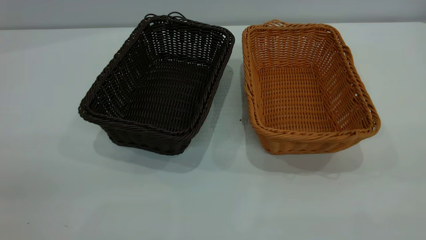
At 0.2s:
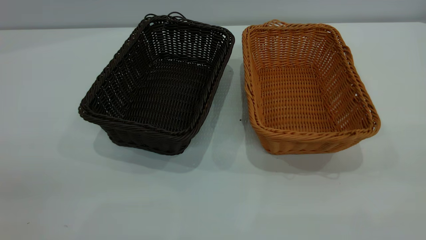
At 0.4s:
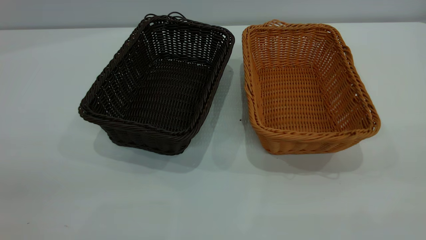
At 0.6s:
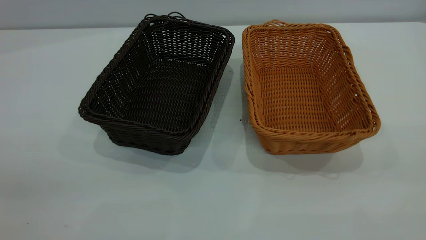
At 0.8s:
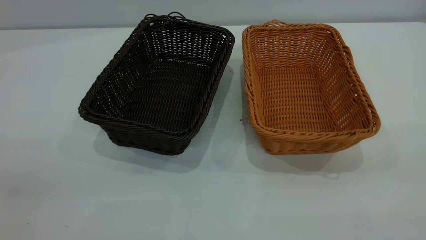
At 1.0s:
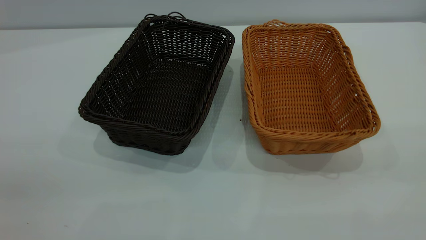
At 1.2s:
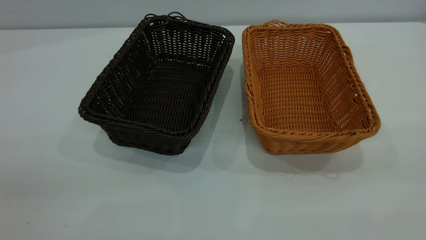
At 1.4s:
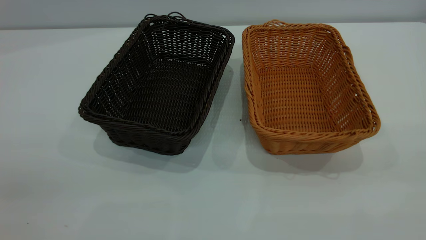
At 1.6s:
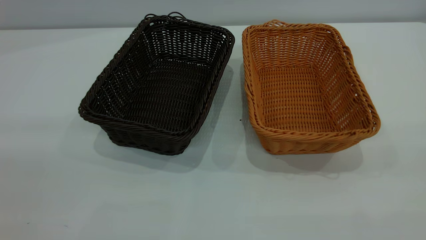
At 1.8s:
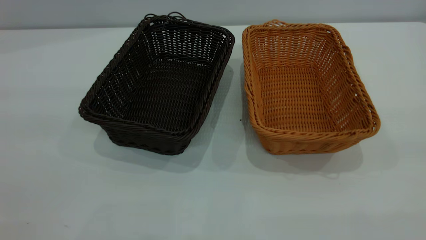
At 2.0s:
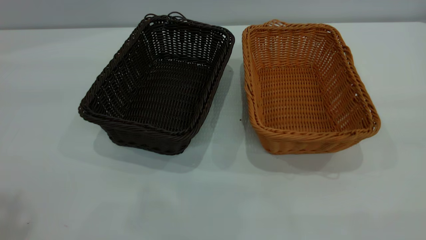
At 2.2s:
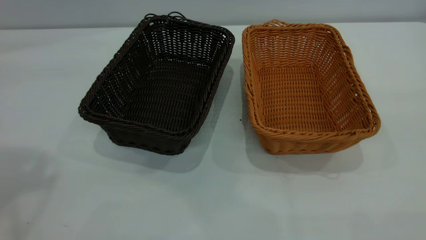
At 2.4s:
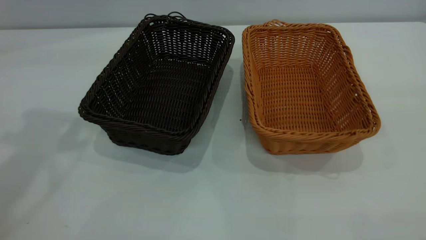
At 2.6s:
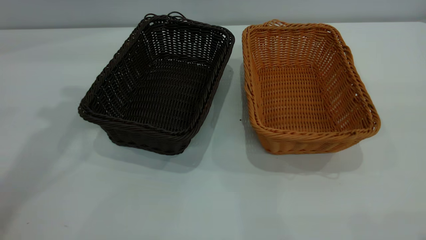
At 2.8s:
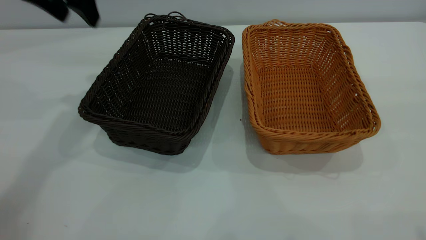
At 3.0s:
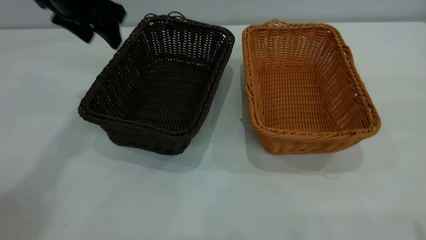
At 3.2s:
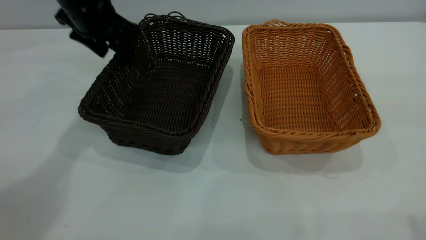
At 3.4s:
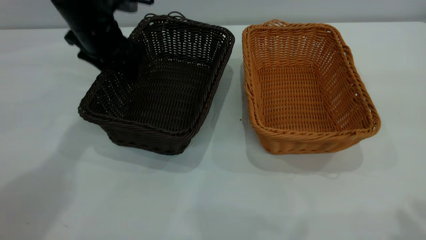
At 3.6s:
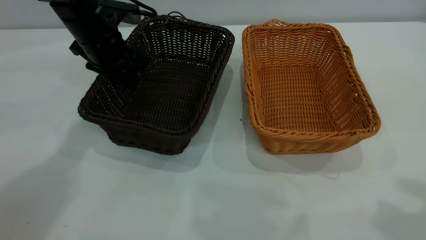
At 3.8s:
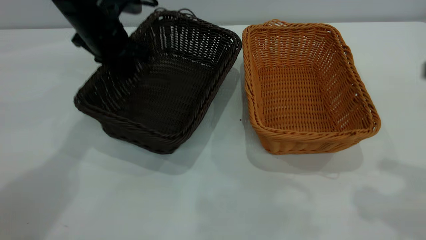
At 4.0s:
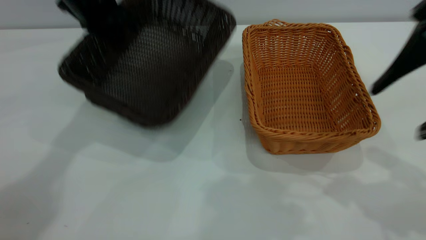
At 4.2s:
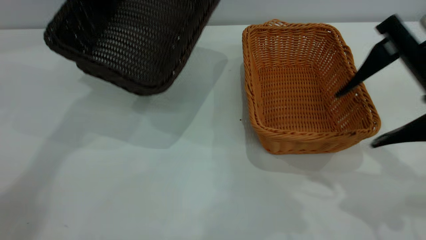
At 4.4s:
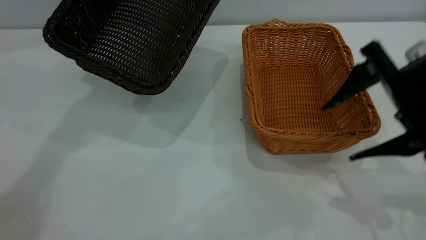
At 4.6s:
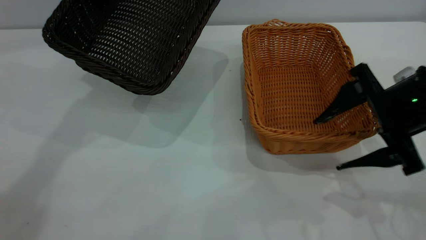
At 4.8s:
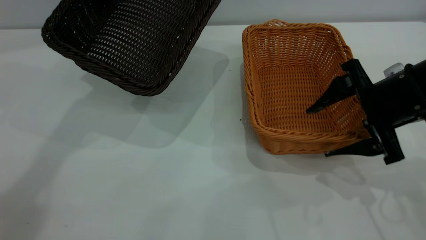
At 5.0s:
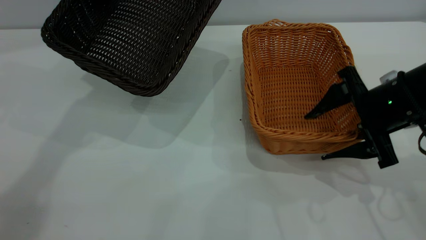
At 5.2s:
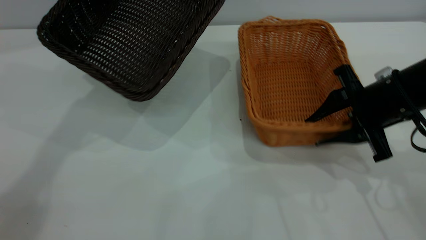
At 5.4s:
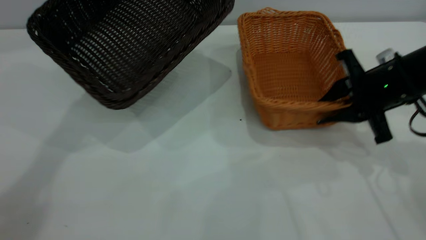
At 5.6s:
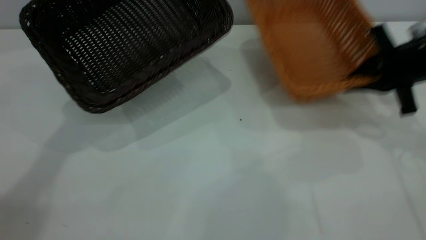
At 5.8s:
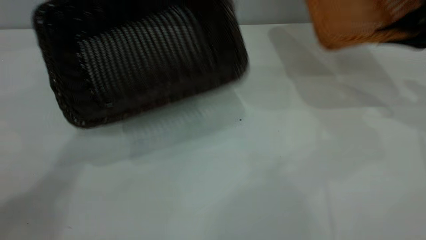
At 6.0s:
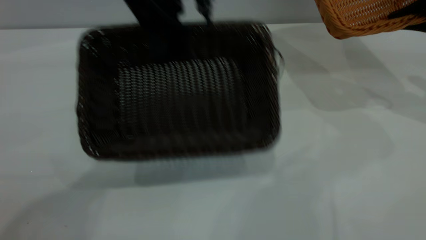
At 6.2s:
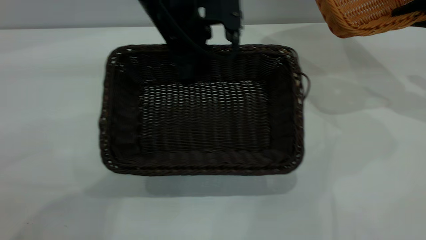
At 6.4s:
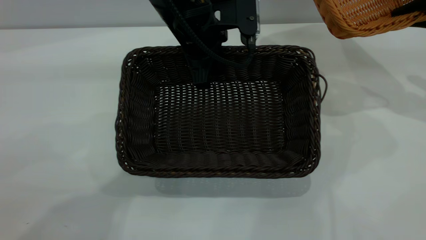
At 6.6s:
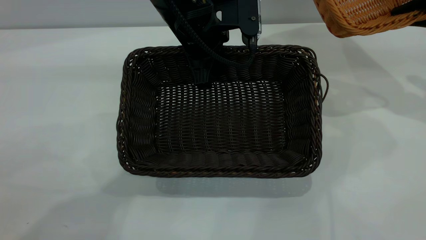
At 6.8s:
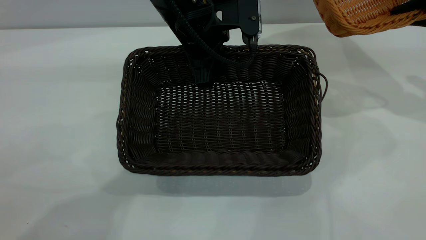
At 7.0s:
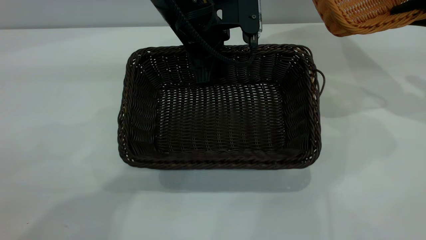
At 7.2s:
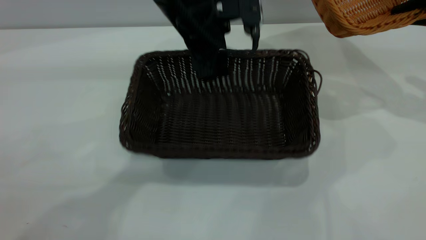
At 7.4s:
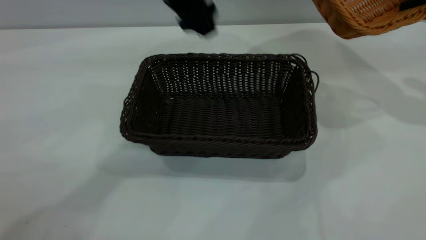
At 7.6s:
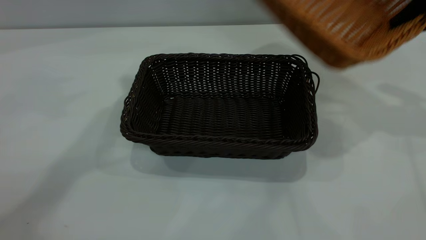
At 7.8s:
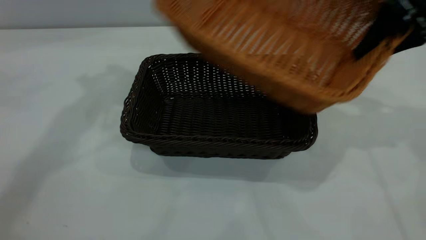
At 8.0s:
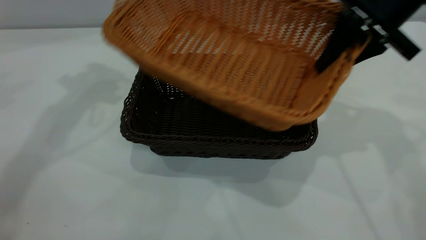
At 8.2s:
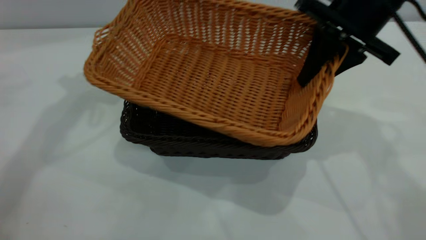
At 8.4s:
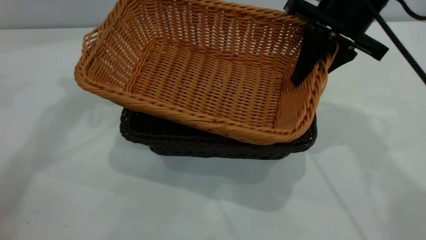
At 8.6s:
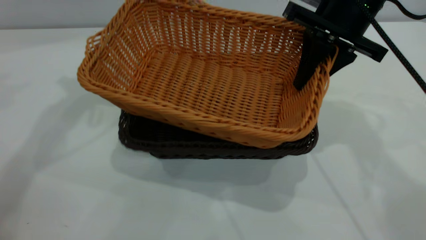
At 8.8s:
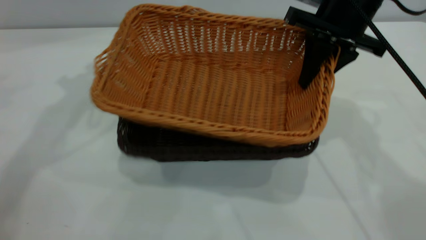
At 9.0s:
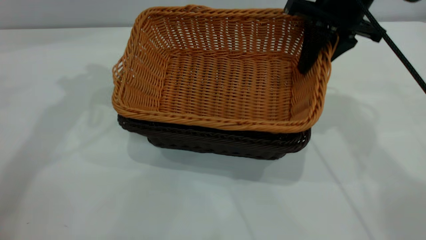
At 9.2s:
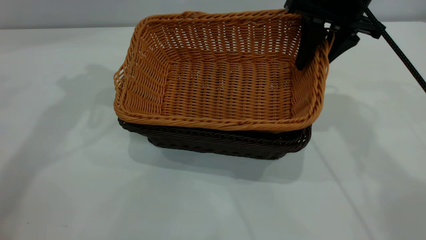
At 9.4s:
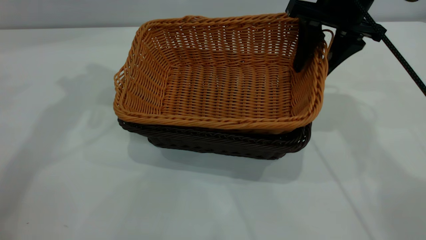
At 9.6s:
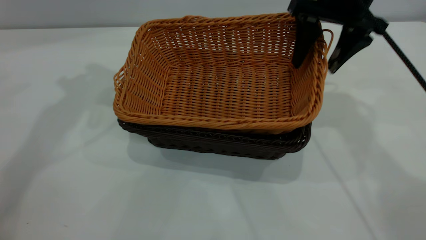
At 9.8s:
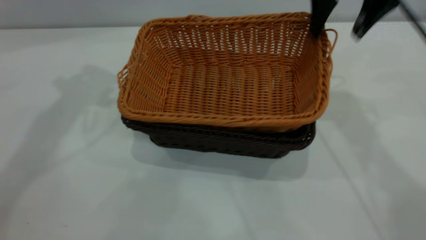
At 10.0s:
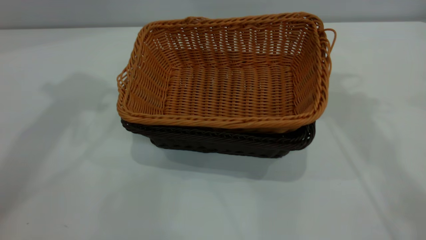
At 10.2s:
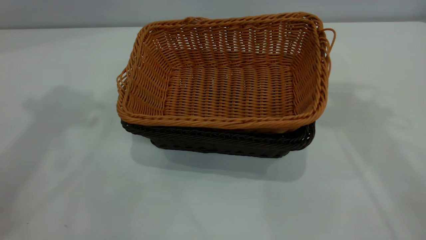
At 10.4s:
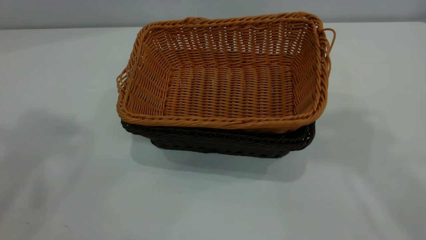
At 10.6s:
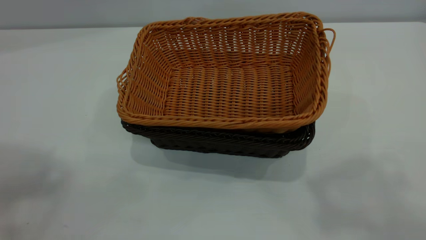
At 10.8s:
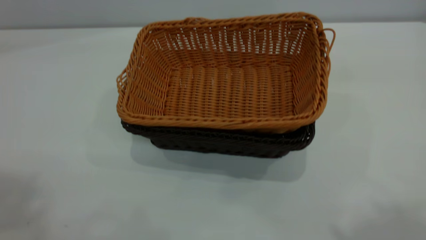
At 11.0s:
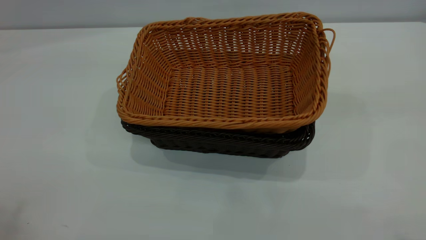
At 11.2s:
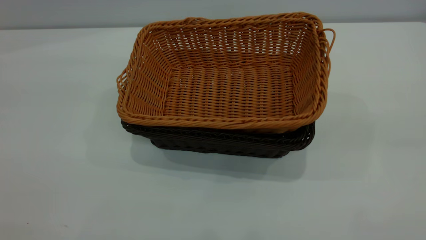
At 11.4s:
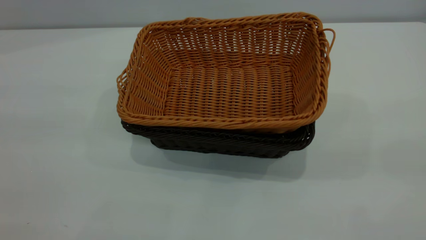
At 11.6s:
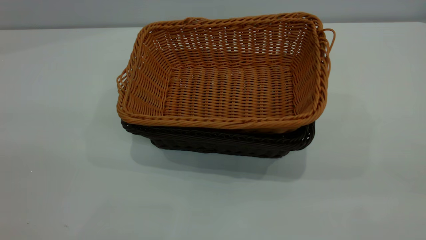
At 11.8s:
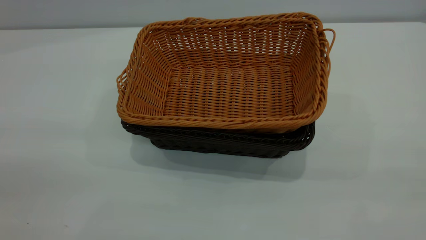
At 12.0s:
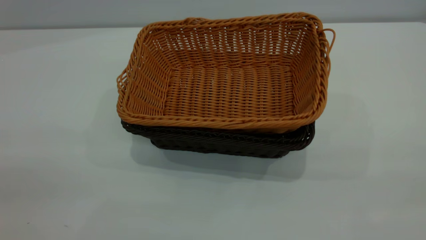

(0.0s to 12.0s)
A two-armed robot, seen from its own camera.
Task of the whole recording: the left gripper grasp the black basket and place it in the center of the table, the right gripper grasp the brown basket and place it inside the black one.
Step, 0.0s - 5.4s: Pick up the light basket with the right gripper.
Step, 5.6s - 7.2s: Move the dark basket to the center of view.
Step, 7.4s - 9.8s: Place the light basket on the dark basket.
1.6s - 3.0s: The left gripper shifts approximately 40 cm forward and downward.
3.0s - 4.4s: The right gripper shifts about 25 cm downward and forward. The left gripper closes its fingers.
4.4s - 6.0s: The right gripper heads to the right and forward, covering about 20 cm, and closes its fingers, while the left gripper heads to the right, downward and backward, covering roughly 15 cm.
6.0s - 7.6s: The left gripper is displaced upward and to the left by some 15 cm, and opens its fingers; the right gripper goes roughly 5 cm to the left.
7.6s - 9.0s: The right gripper goes some 15 cm to the left; the left gripper travels to the left by about 10 cm.
9.0s - 10.4s: The two grippers go some 30 cm upward and backward. The right gripper opens up.
